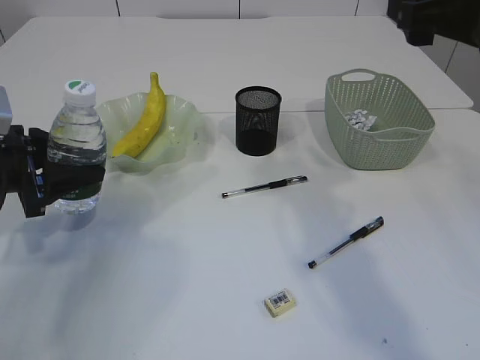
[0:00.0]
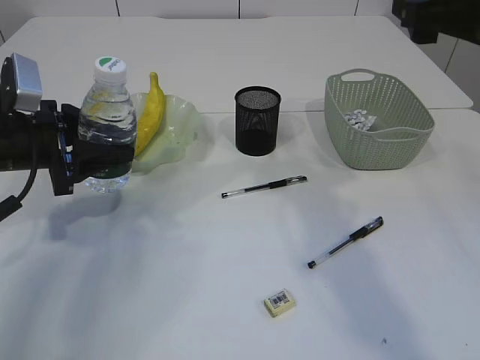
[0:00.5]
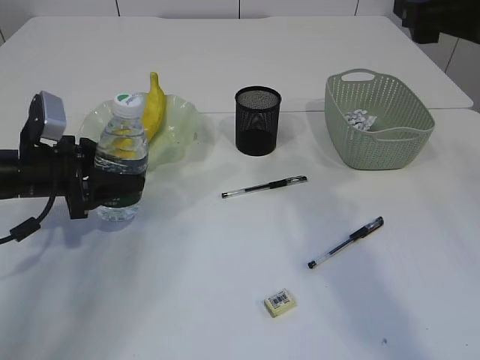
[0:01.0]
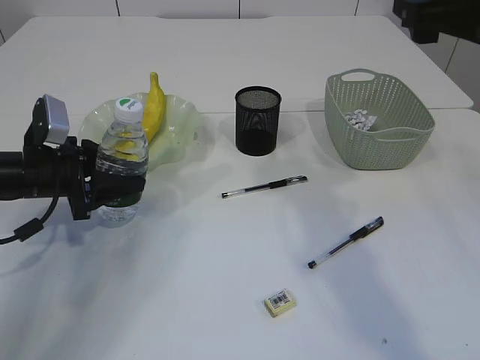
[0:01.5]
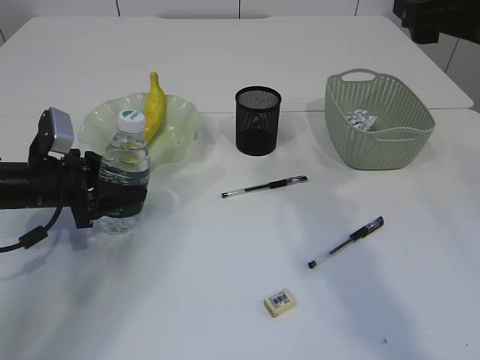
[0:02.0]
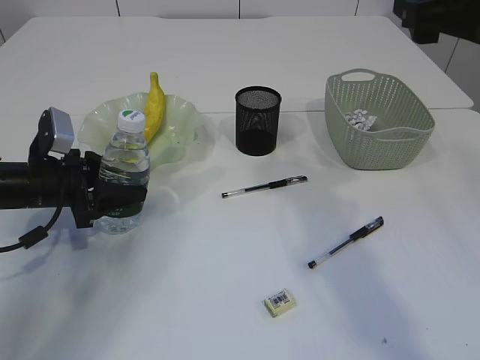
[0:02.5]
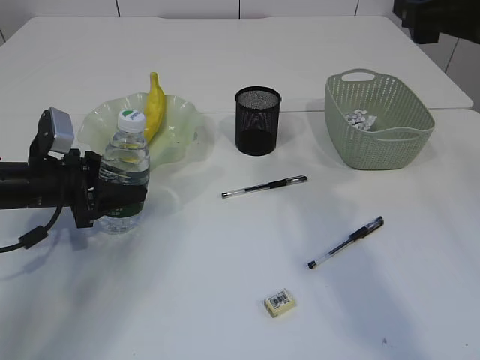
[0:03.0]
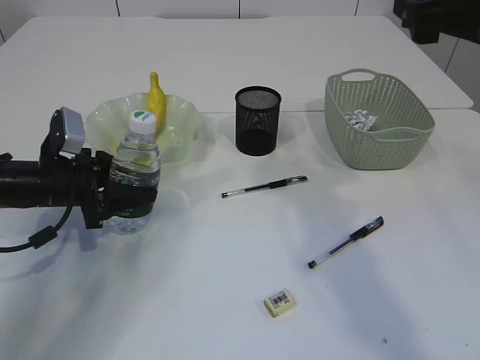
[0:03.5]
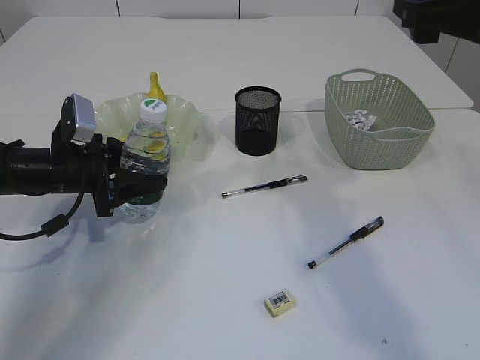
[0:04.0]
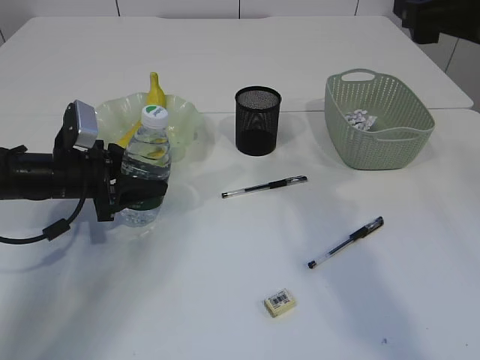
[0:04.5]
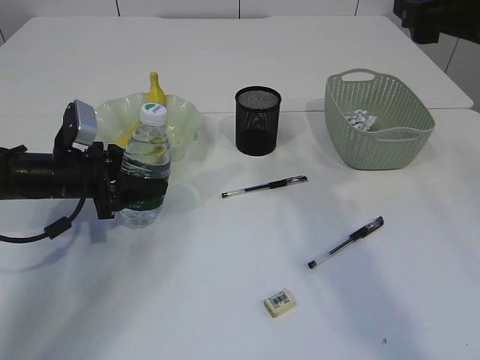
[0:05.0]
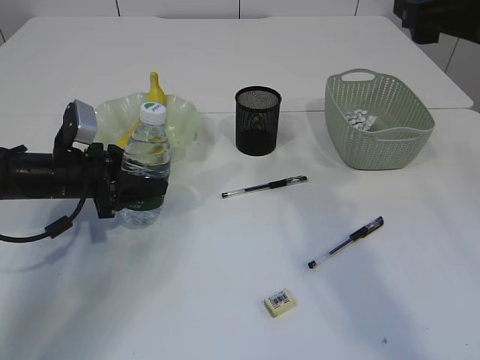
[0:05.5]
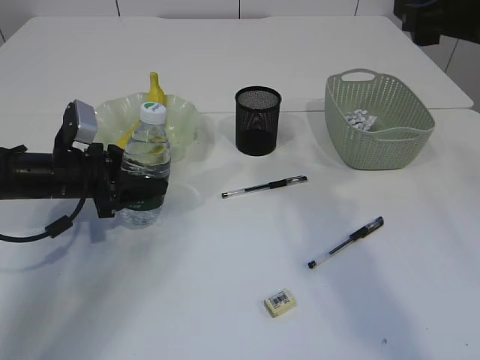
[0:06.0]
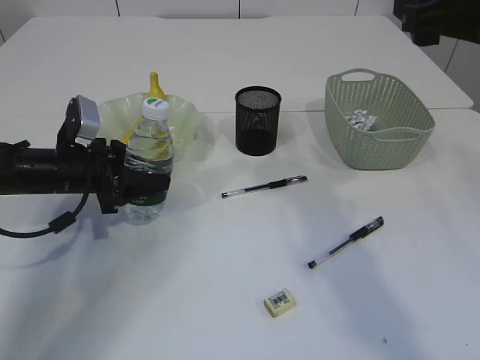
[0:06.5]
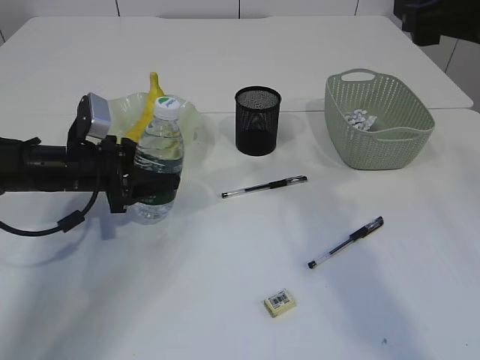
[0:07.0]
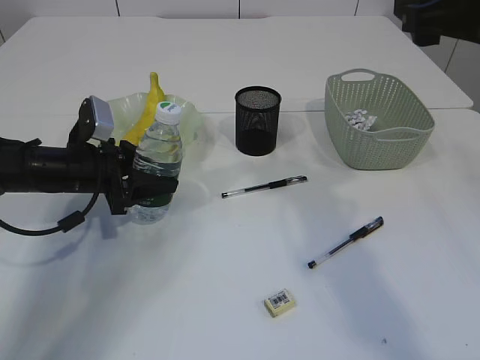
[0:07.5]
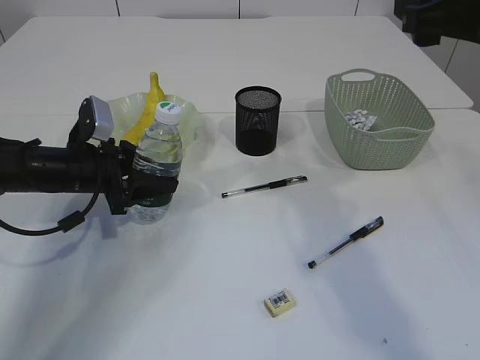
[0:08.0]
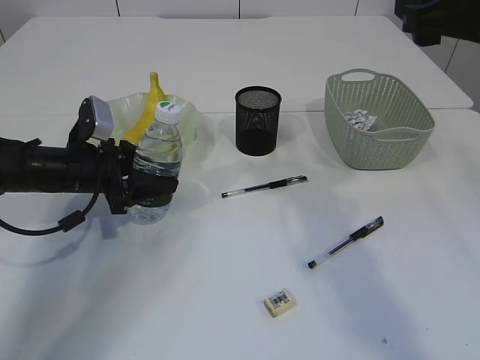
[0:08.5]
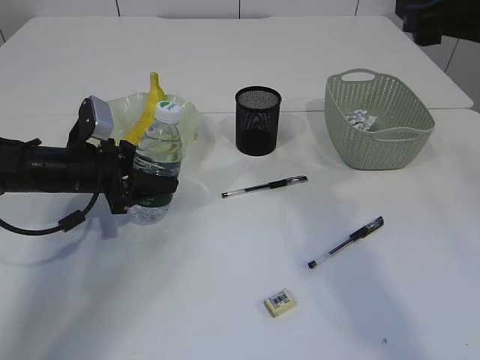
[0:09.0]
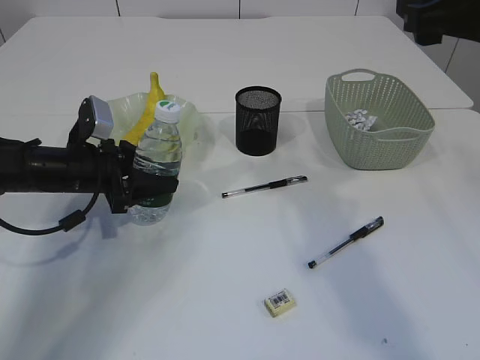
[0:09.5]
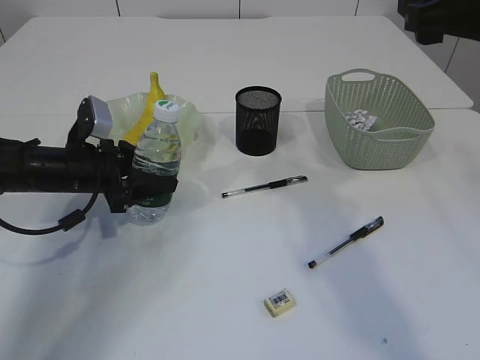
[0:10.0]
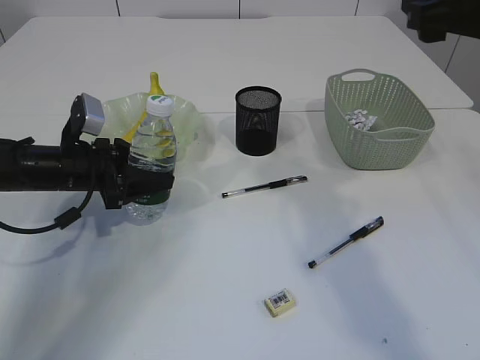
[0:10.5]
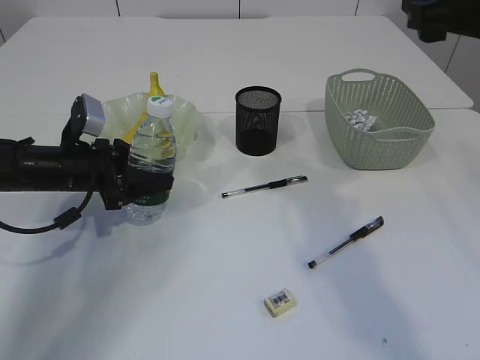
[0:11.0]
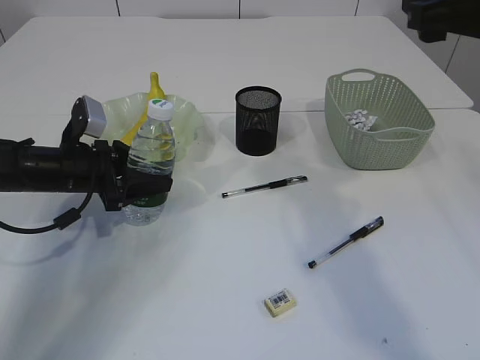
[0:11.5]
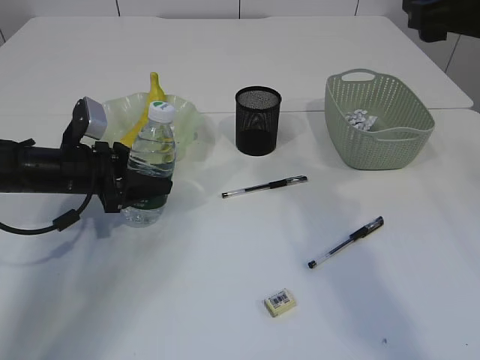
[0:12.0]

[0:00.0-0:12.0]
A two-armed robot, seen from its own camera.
0:00.0 to 0:02.0: The left gripper is displaced downward by approximately 5 cm.
0:02.0 to 0:08.0: There are only small adjustments of the grippers.
0:08.0 to 0:12.0: Both grippers stay about where they are.

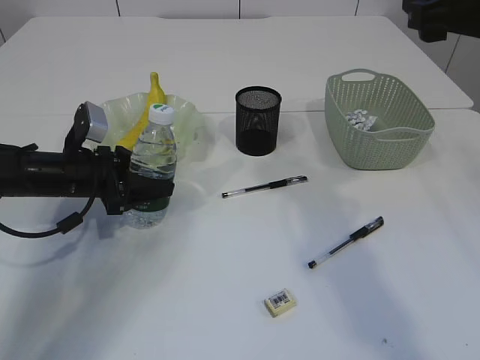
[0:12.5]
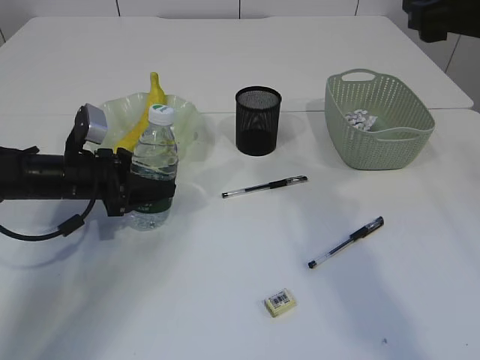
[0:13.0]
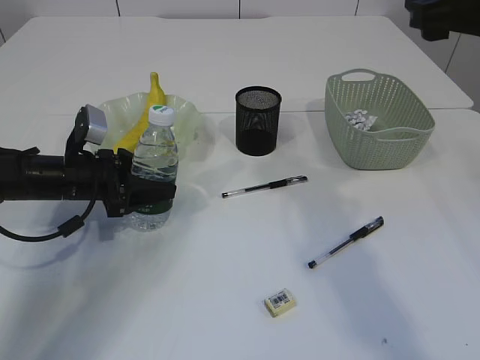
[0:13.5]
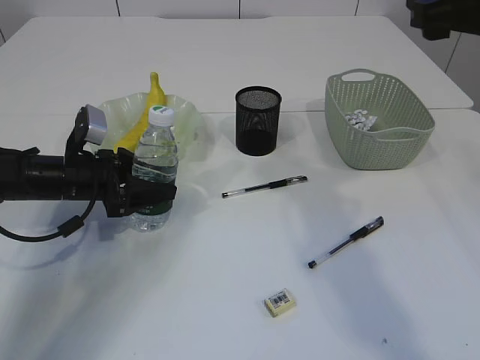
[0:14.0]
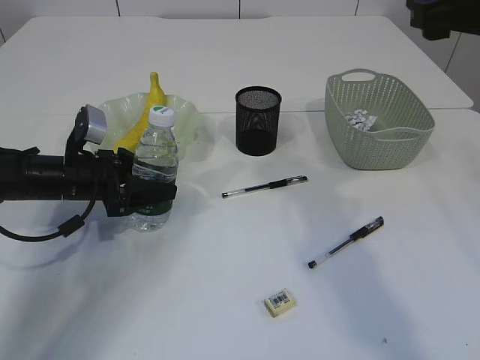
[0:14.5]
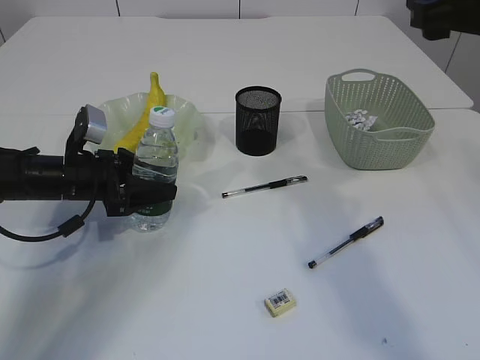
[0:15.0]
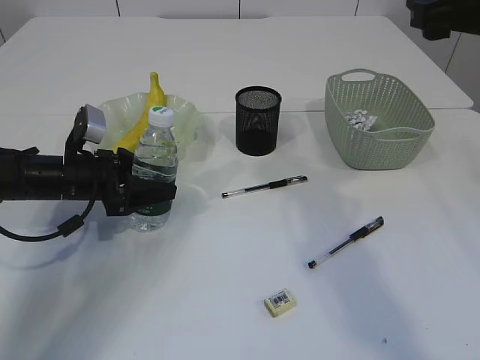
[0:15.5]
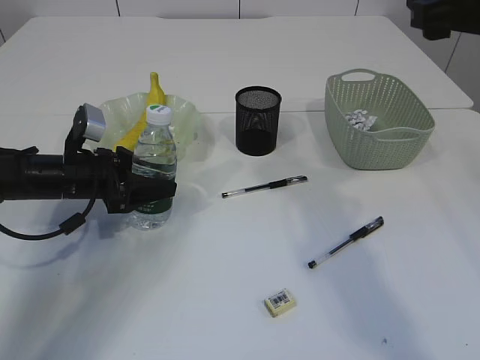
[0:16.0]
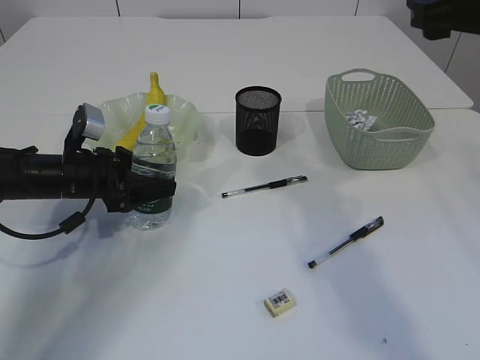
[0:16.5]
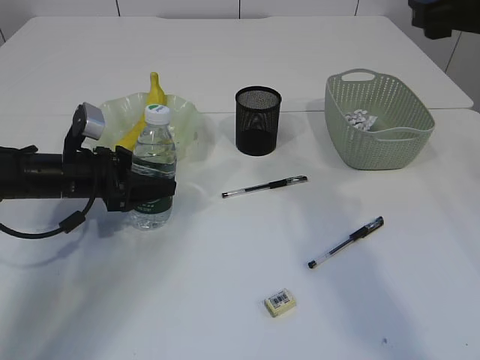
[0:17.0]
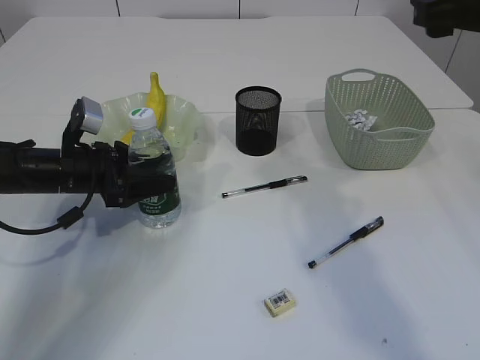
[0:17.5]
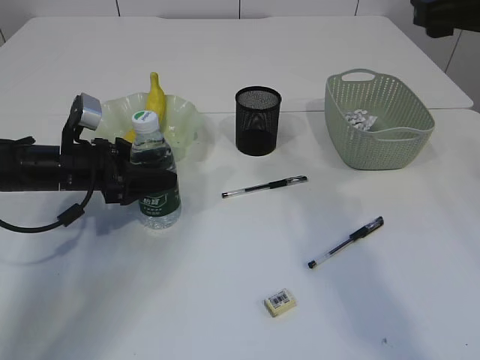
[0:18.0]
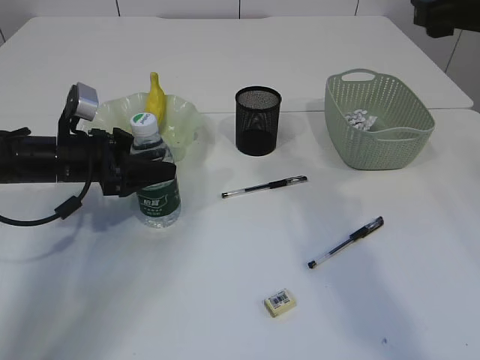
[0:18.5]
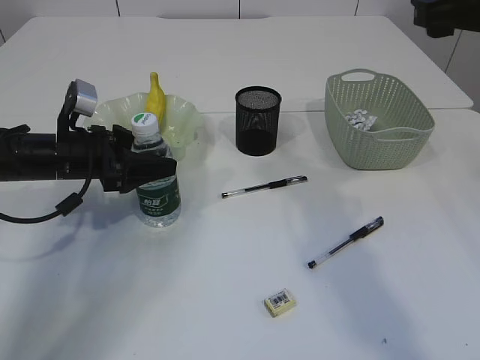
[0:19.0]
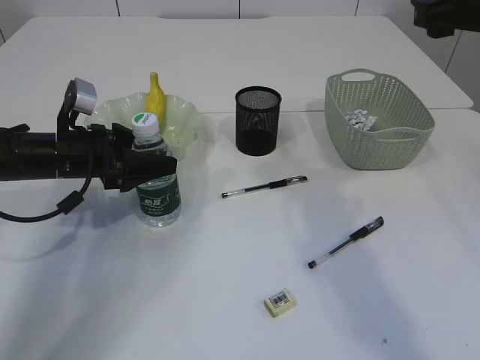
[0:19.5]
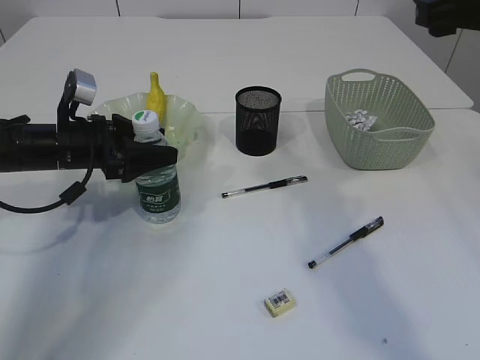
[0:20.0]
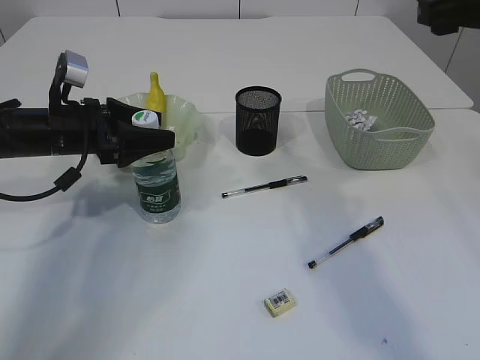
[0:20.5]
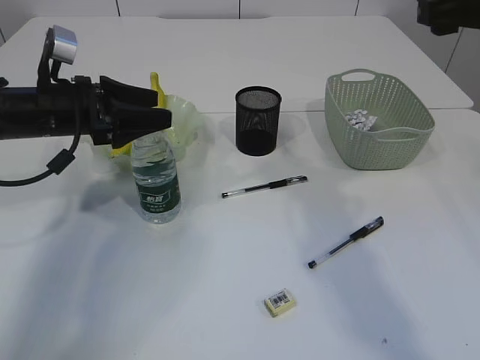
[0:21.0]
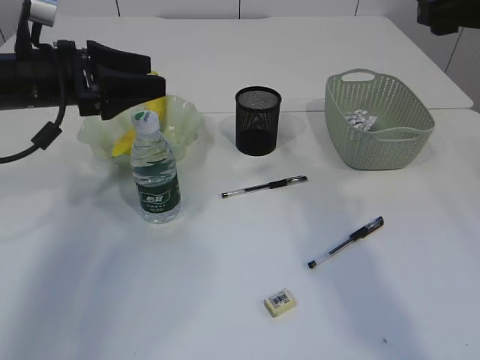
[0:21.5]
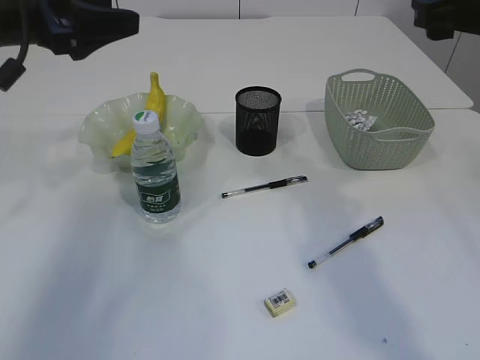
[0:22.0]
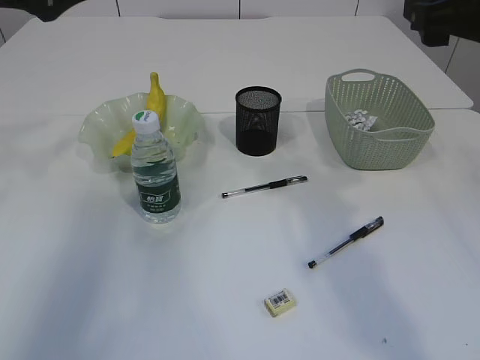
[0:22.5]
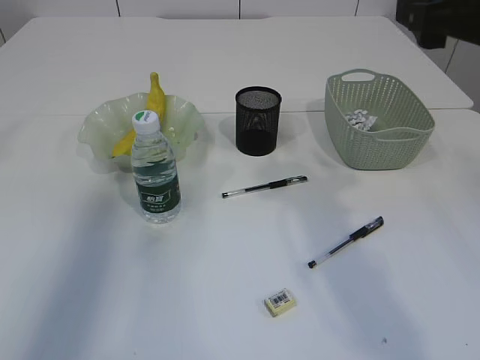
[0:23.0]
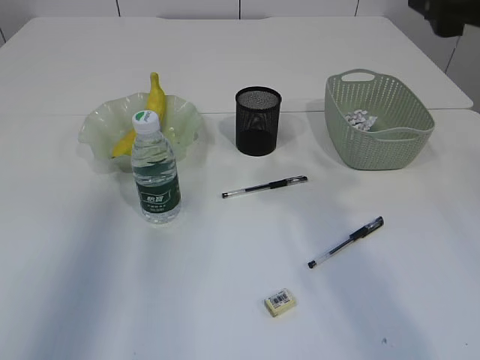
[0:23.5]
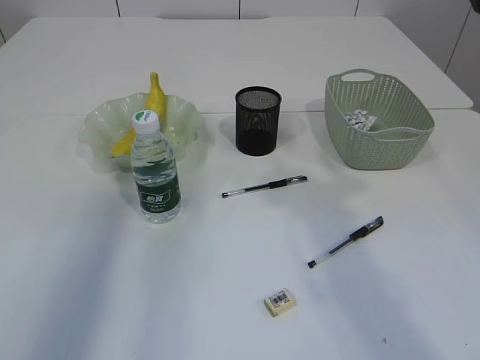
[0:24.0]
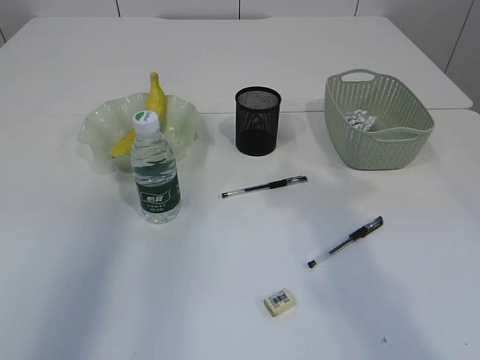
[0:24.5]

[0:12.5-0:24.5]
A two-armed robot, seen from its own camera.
Step, 0:12.5 to 0:21.0: Place the bottle.
0:12.5 to 0:14.5: The two grippers keep their place.
0:14.5 to 0:16.5: The two grippers keep their place.
0:16.5 to 0:18.5: The grippers move only a little.
0:18.5 to 0:20.5: The grippers move only a little.
0:20.5 to 0:22.5: The left gripper moves upward, some 20 cm.
0:22.5 to 0:24.5: The left gripper shifts approximately 10 cm upward and backward. The right gripper ends up roughly 5 cm from where it was.

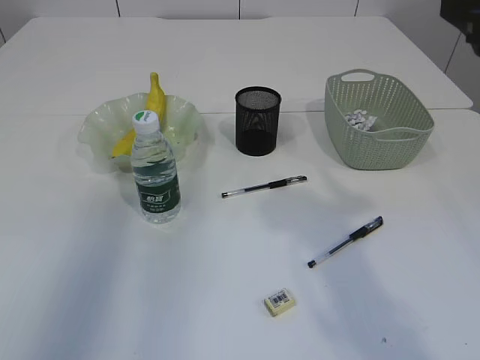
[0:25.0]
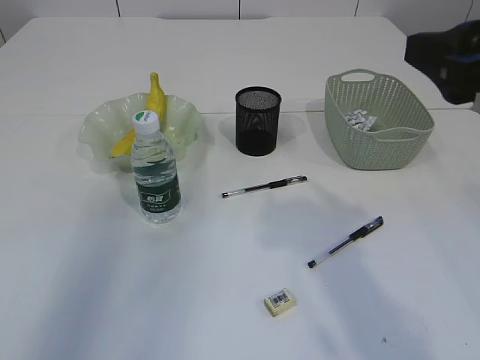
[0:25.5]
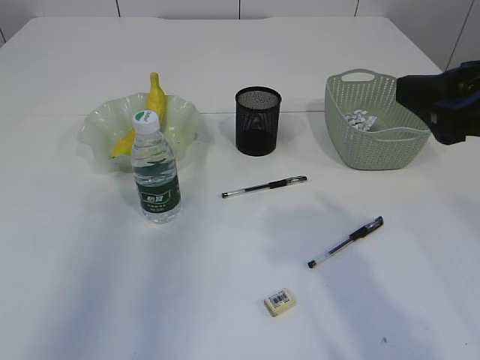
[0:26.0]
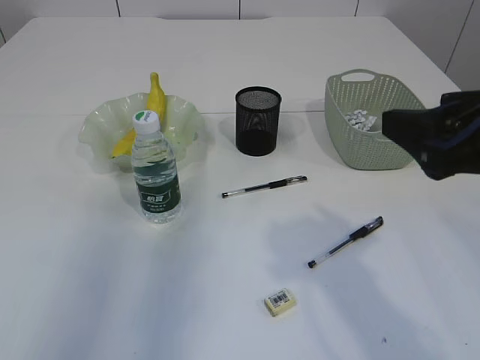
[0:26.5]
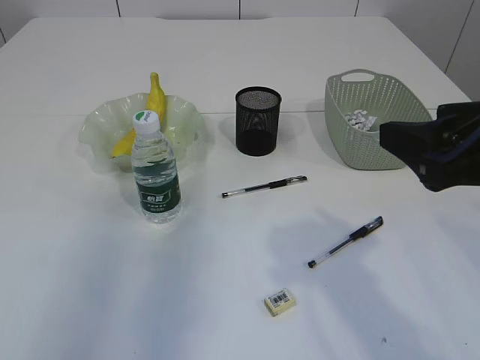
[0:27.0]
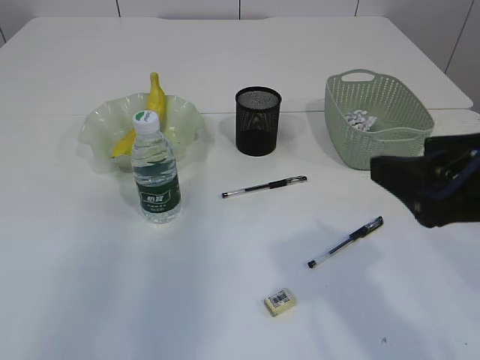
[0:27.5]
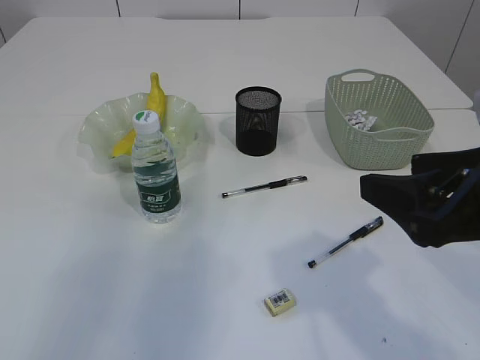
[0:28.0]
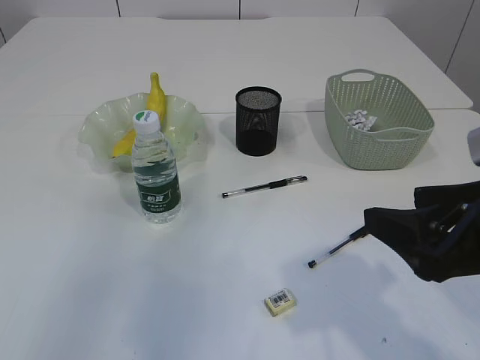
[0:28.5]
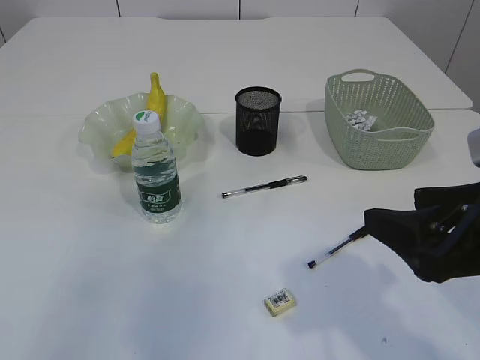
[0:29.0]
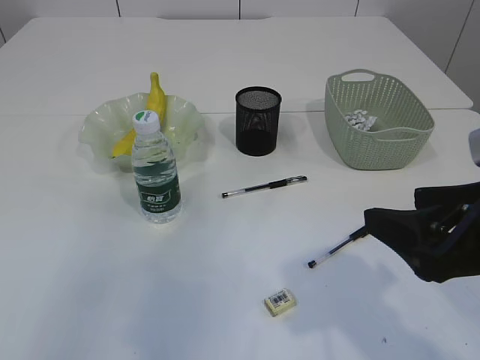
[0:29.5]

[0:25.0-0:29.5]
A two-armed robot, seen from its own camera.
0:25.0 to 0:27.0: The right gripper is displaced downward by some 10 cm.
0:27.0 to 0:29.5: The right gripper moves downward, roughly 5 cm.
